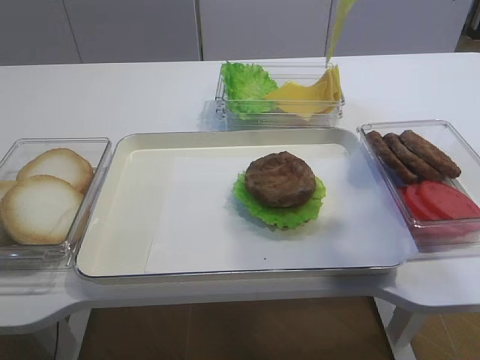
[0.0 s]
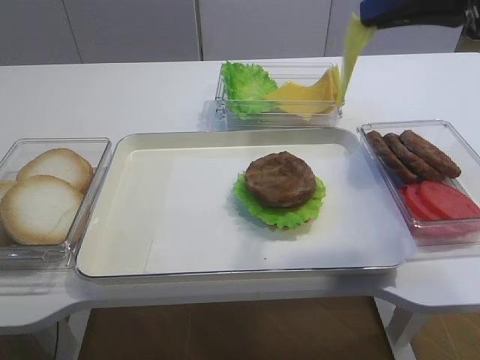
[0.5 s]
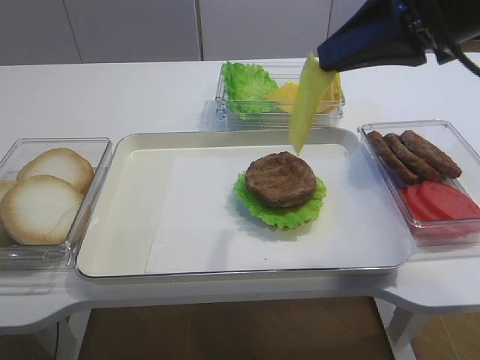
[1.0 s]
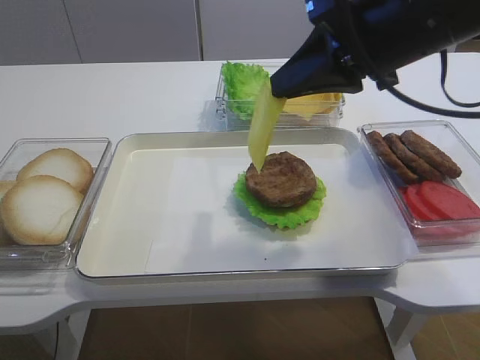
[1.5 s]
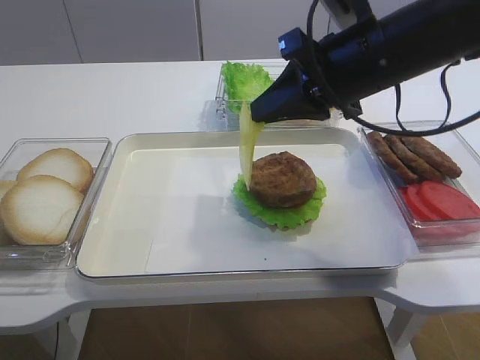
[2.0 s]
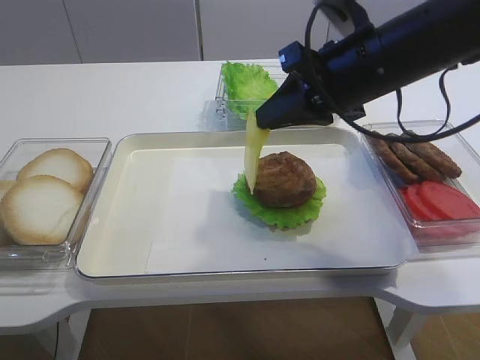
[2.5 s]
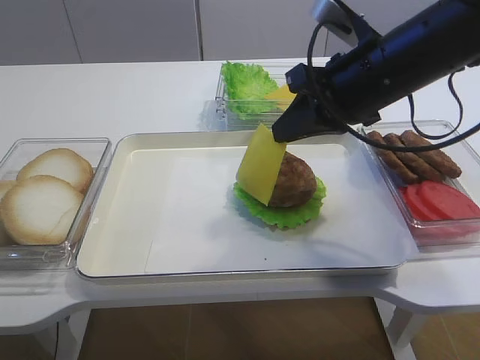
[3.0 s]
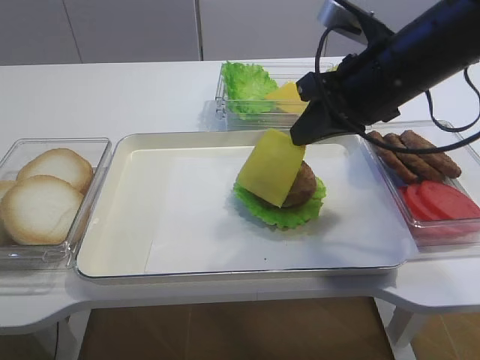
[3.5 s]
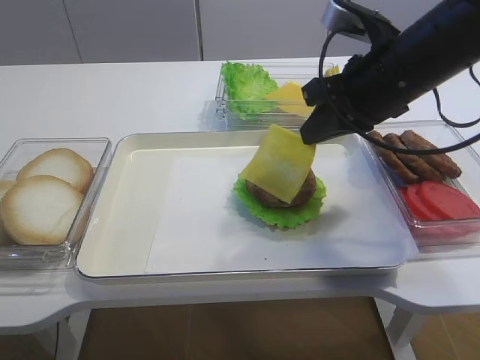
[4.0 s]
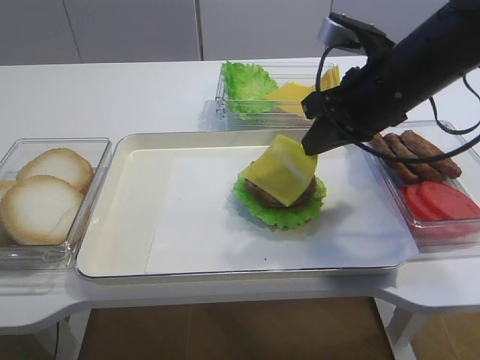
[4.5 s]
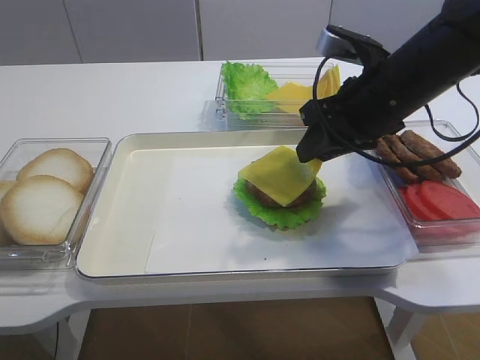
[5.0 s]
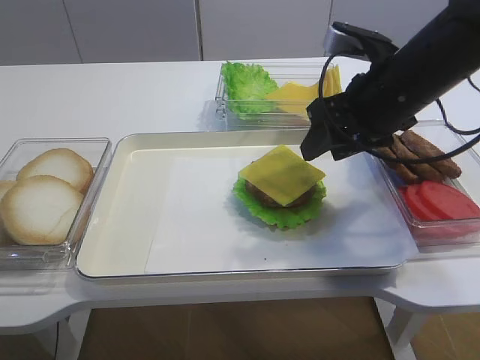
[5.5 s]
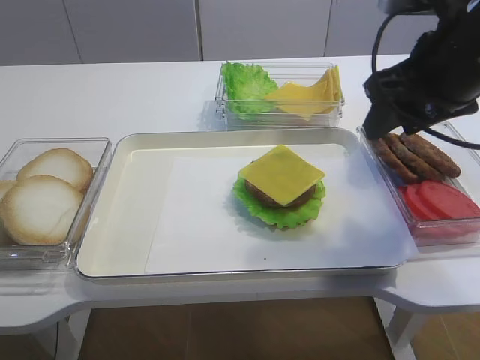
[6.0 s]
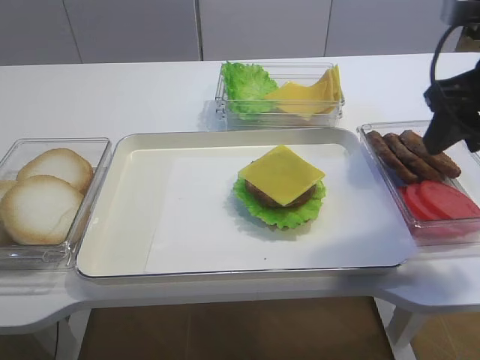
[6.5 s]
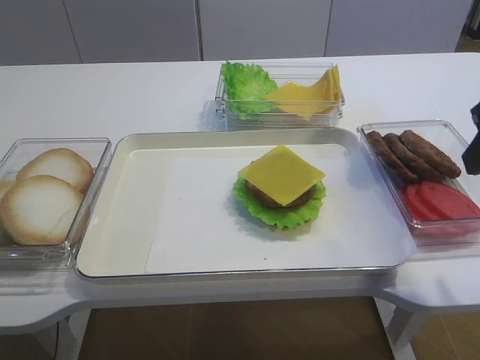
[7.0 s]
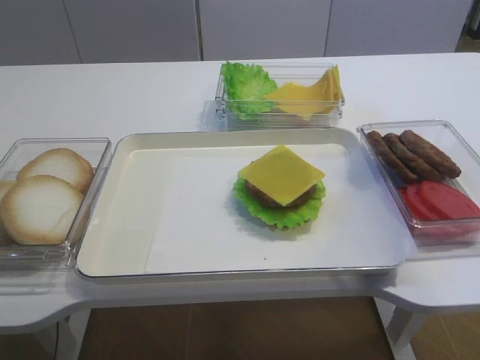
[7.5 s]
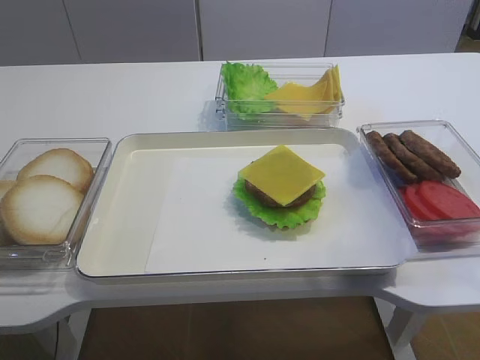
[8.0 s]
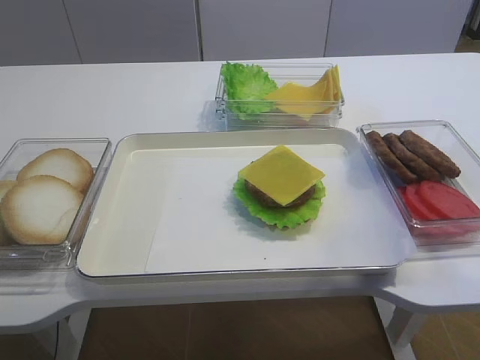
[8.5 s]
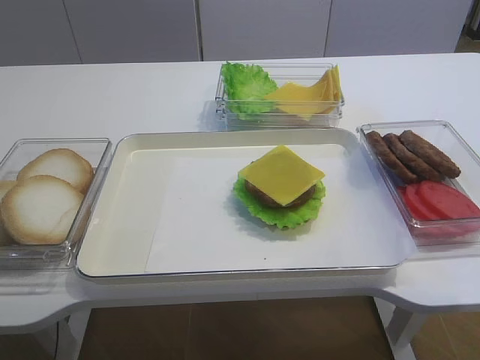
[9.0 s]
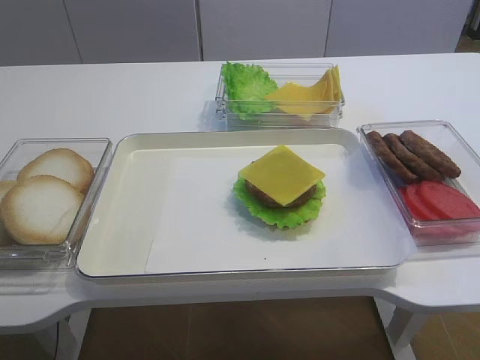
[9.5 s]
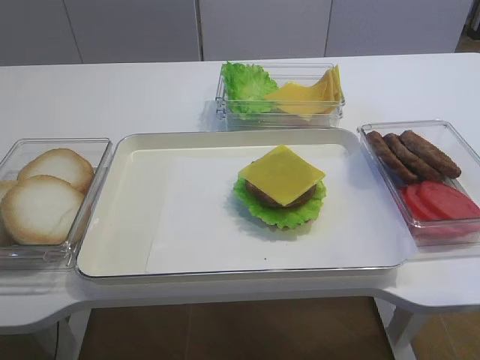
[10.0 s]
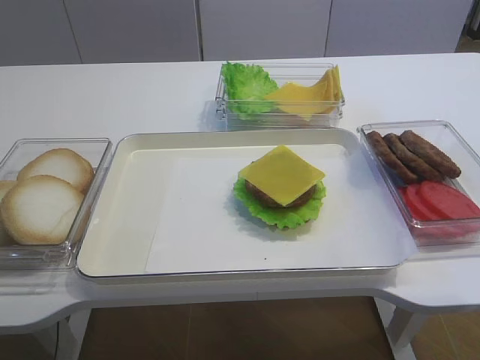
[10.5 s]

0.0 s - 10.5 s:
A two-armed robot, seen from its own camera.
Step, 0.0 s - 5.0 s: Place the cheese slice on the cutlet with the right gripper.
0.0 s - 2.0 s: The right gripper shifts some 15 cm downward and to the left.
4.0 s - 6.5 s: The right gripper is displaced to the right and backward by about 10 cm, and opens.
6.5 s - 8.5 s: The right gripper is displaced backward by approximately 25 cm.

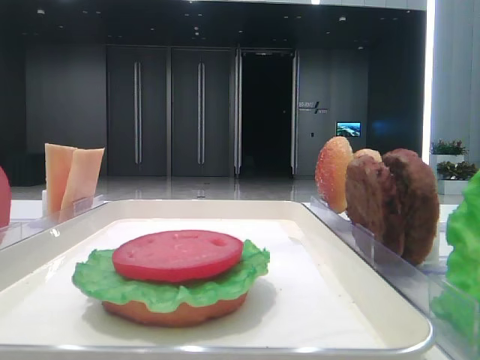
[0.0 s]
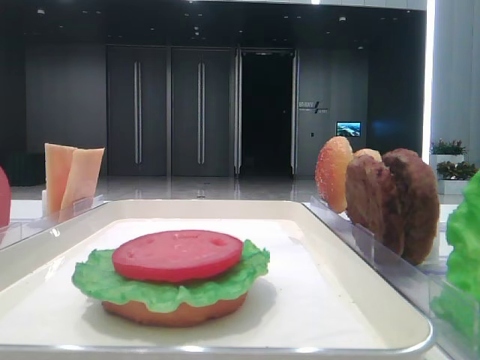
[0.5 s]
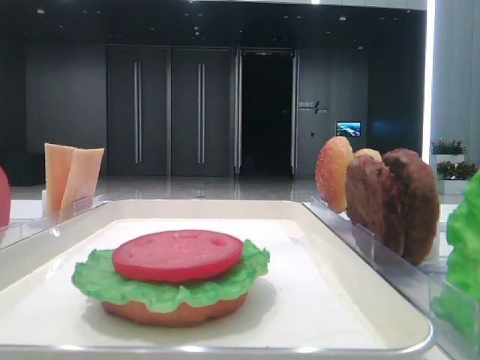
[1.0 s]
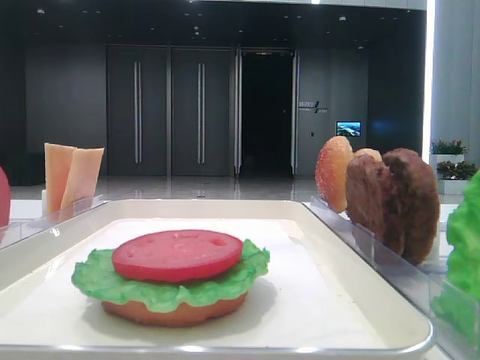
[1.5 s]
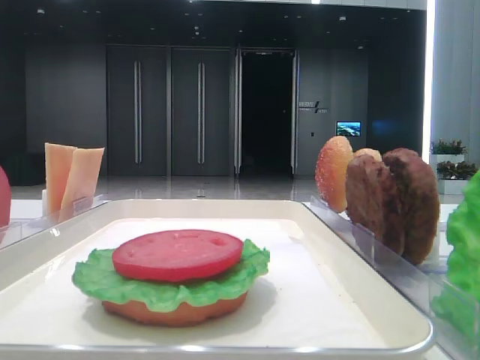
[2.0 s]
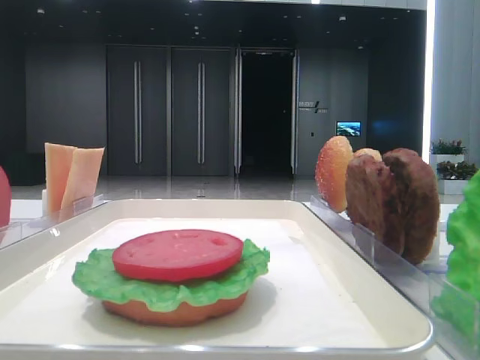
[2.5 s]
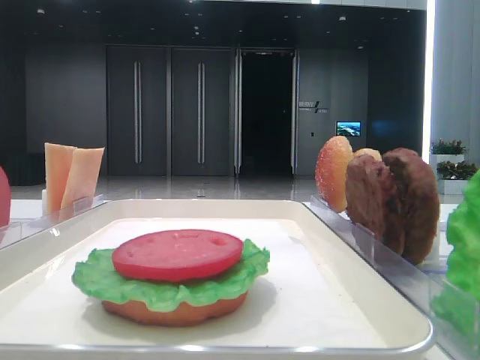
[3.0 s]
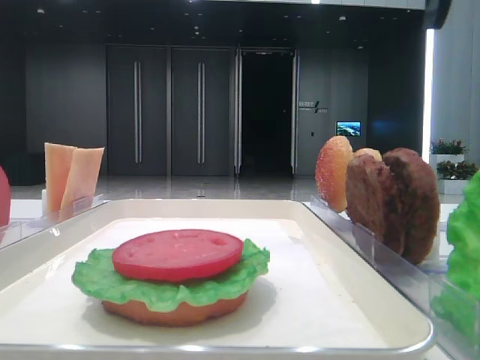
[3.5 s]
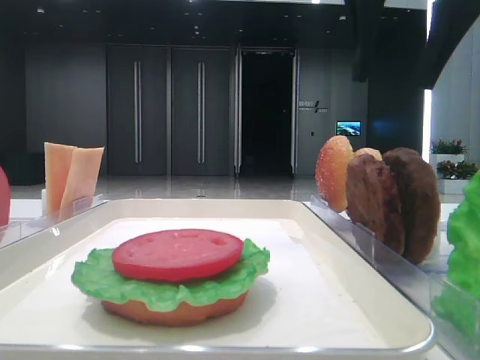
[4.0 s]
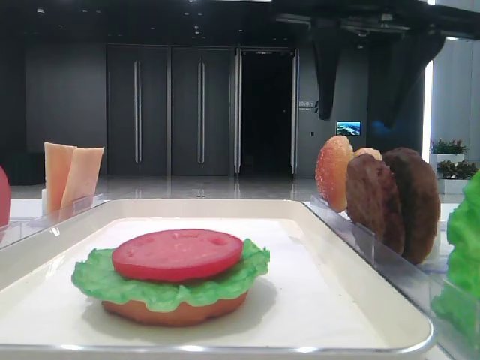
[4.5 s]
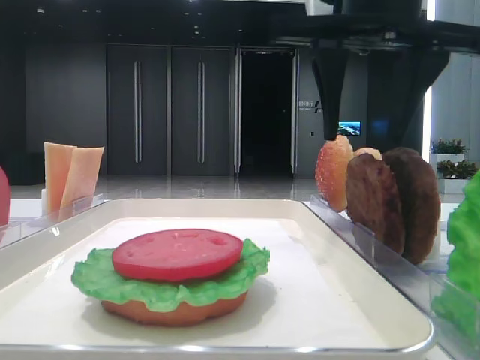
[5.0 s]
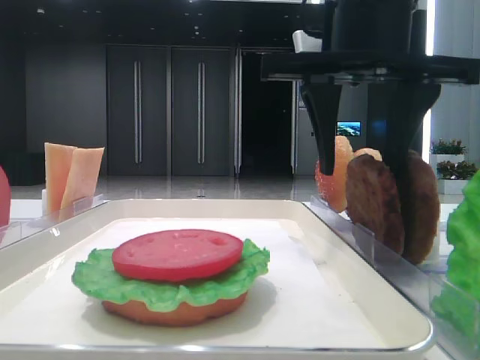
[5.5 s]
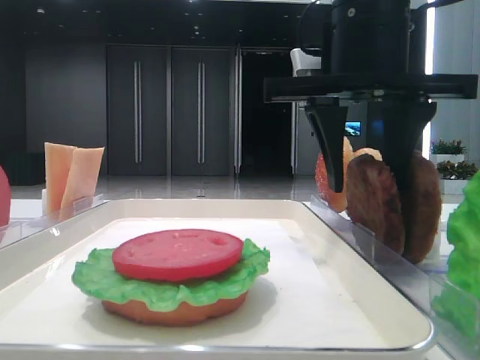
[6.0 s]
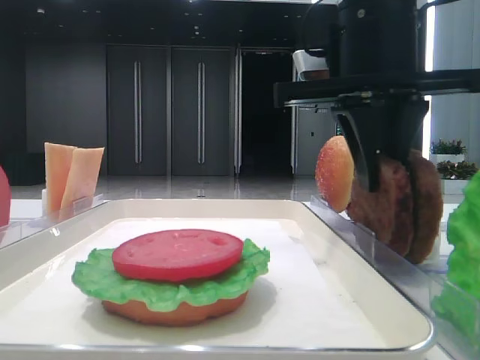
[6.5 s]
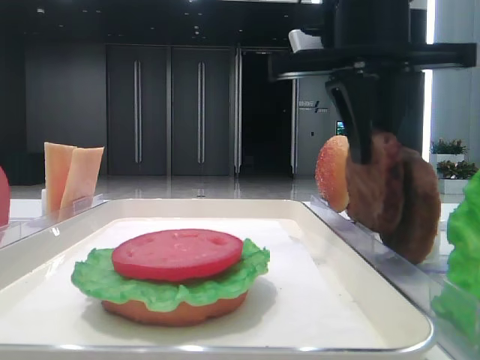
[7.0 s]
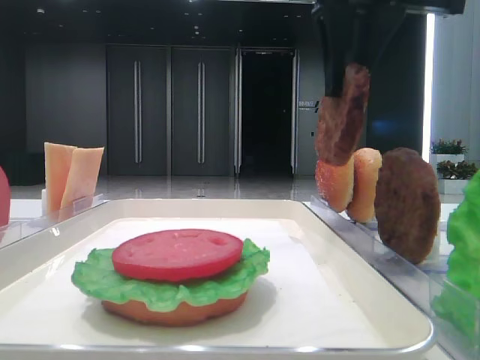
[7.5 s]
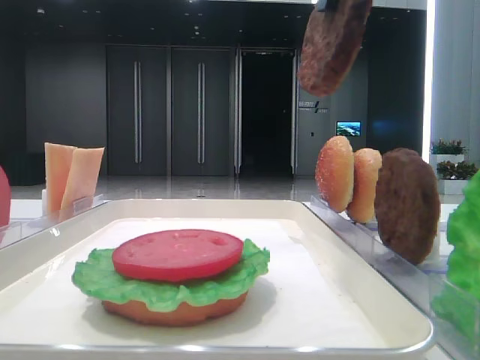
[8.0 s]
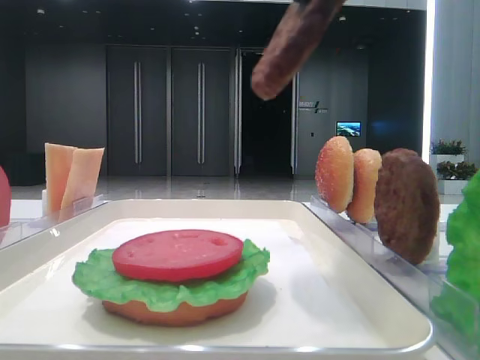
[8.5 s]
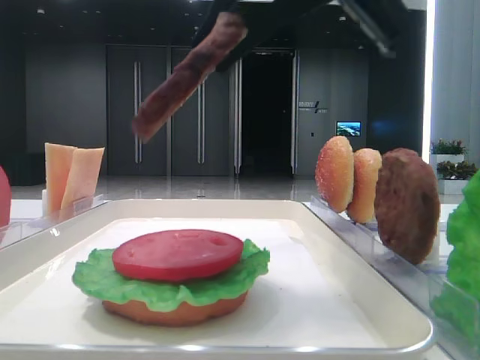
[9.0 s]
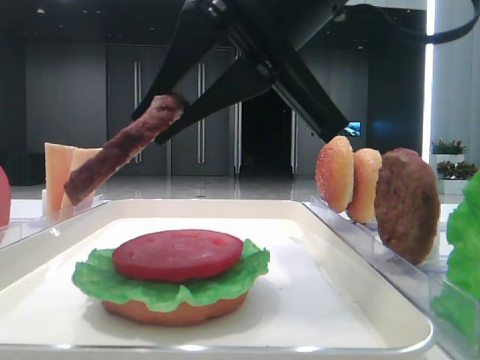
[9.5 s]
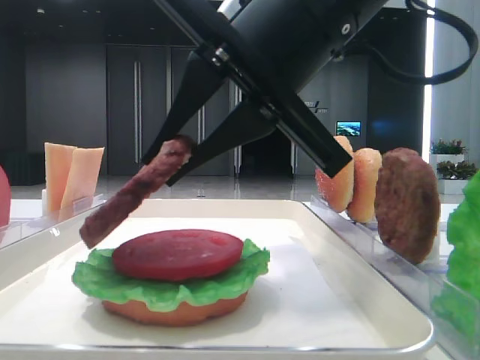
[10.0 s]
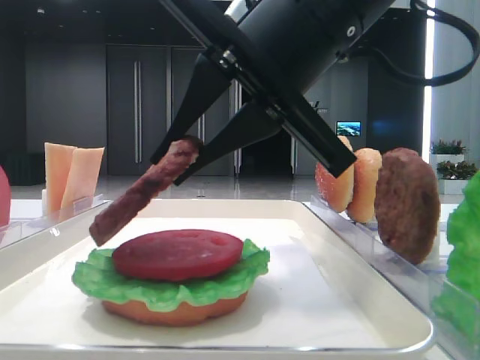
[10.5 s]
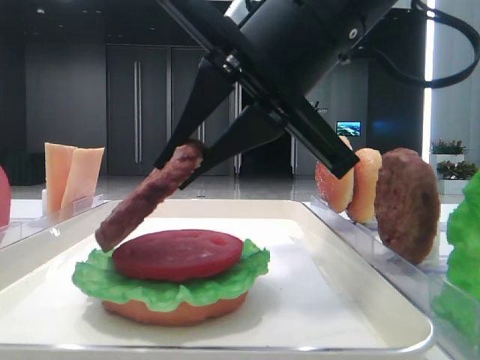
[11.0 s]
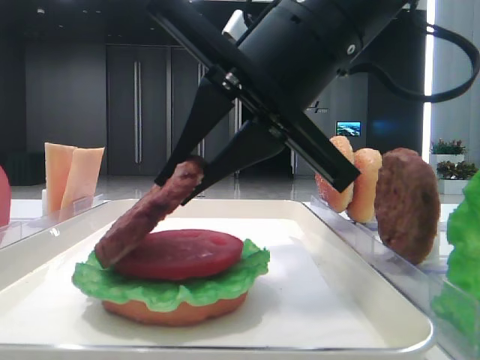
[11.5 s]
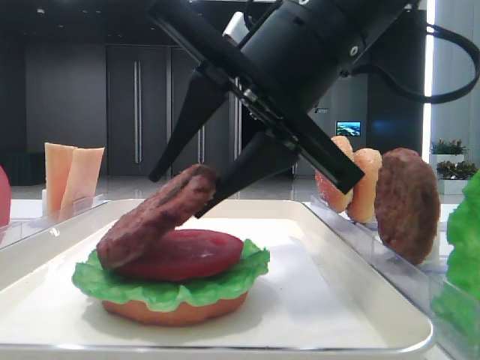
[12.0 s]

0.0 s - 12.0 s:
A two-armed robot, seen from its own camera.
Step, 0.0 s - 6.5 s: Grab the patty with the right hand.
2.0 s - 4.0 s: The right gripper goes about 20 cm to the left and forward.
4.0 s - 6.0 s: The right gripper travels downward by some 10 cm.
6.0 s - 8.0 s: The right gripper shifts some 15 cm upward and backward, and closes.
8.0 s - 10.0 s: The right gripper goes about 15 cm downward.
10.0 s - 12.0 s: The right gripper opens.

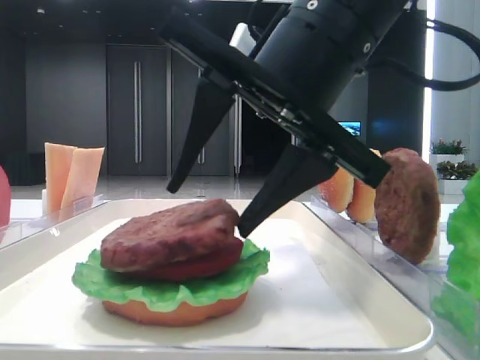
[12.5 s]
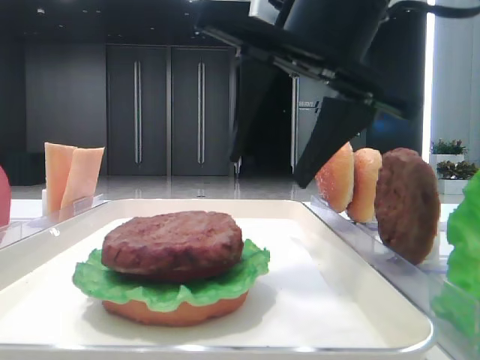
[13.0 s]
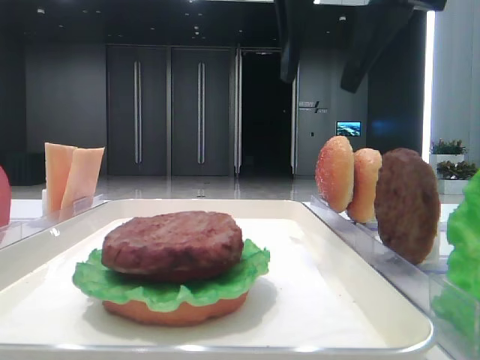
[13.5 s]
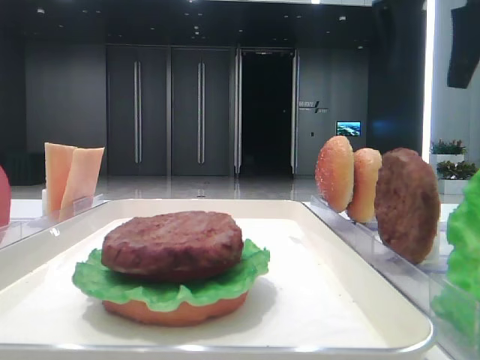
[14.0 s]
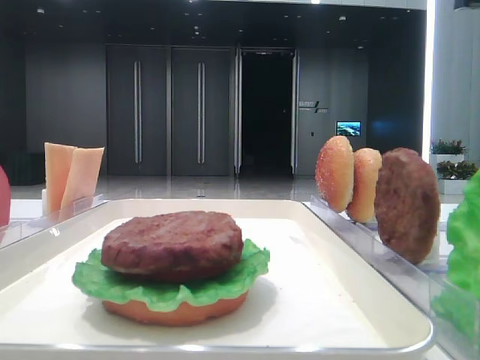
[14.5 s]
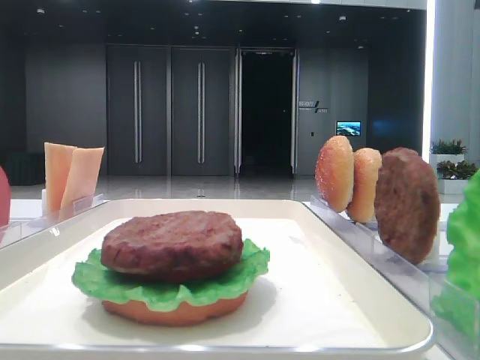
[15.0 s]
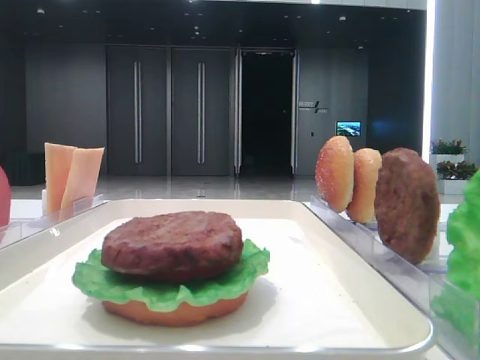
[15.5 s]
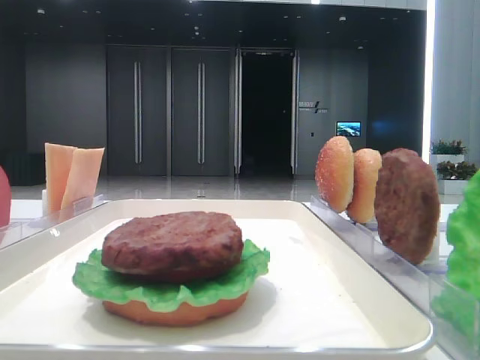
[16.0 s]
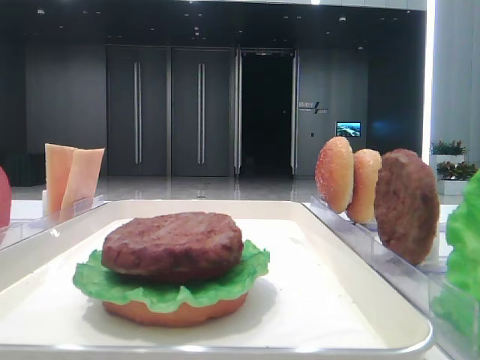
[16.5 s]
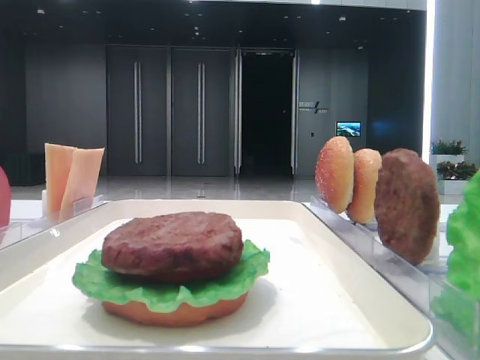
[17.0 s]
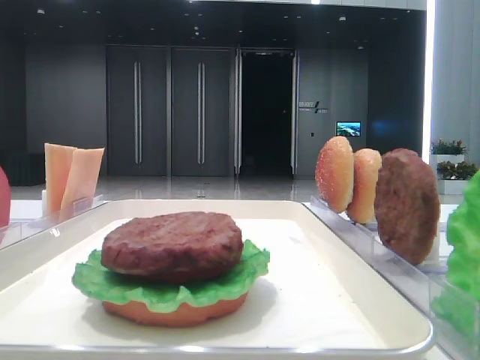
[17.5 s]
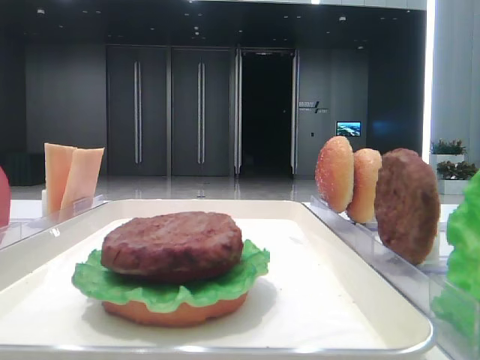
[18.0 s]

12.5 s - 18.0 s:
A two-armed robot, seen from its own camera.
12.5 s - 14.5 s: The right gripper moves to the right, upward and forward, about 25 cm.
